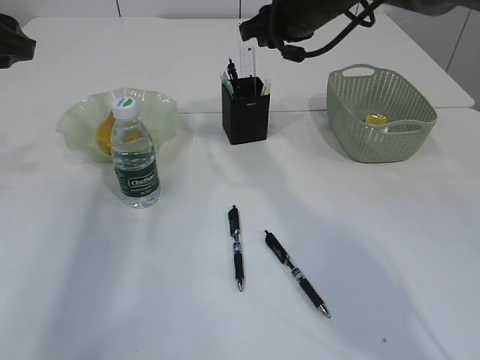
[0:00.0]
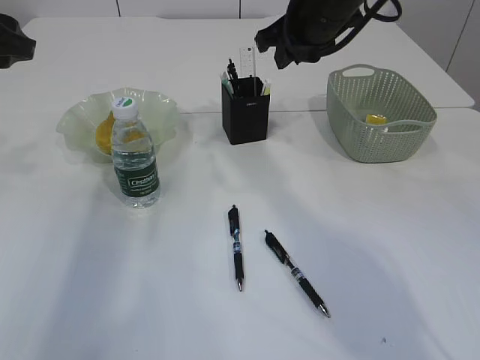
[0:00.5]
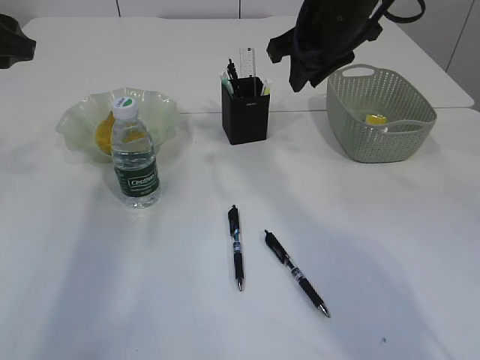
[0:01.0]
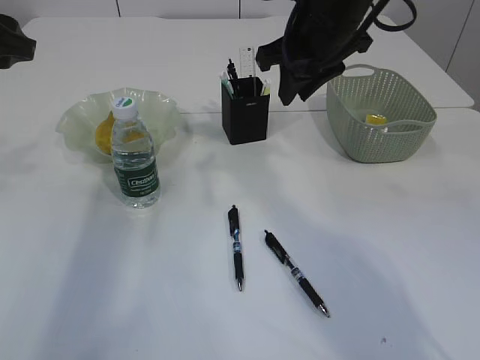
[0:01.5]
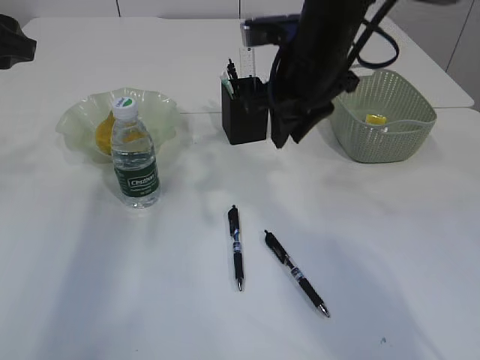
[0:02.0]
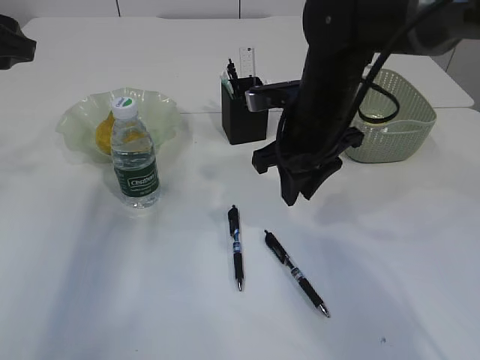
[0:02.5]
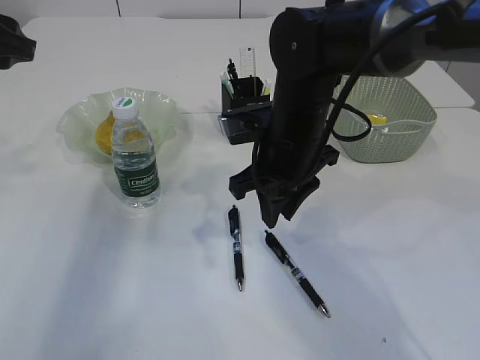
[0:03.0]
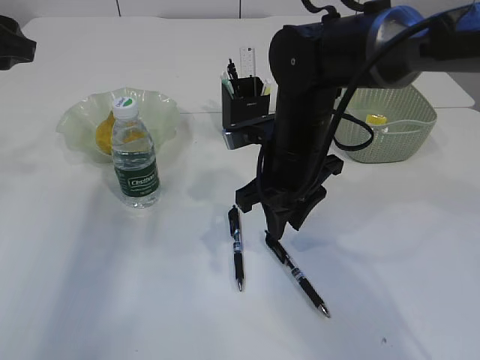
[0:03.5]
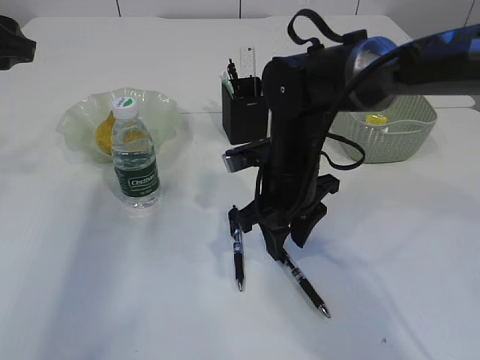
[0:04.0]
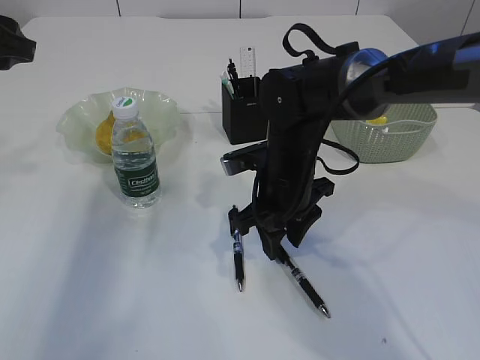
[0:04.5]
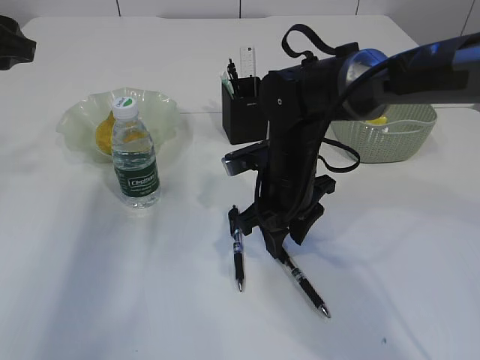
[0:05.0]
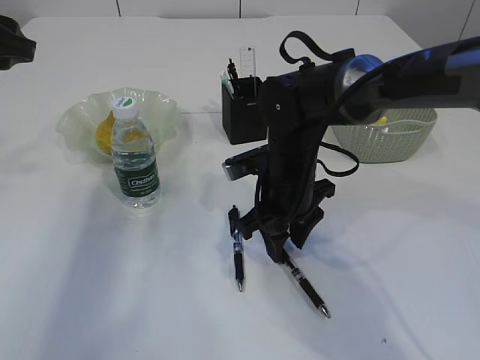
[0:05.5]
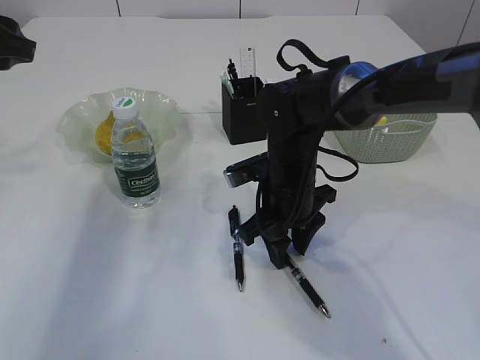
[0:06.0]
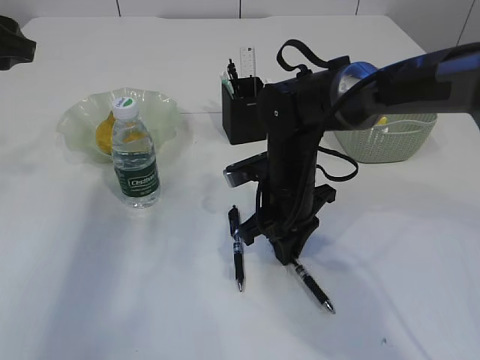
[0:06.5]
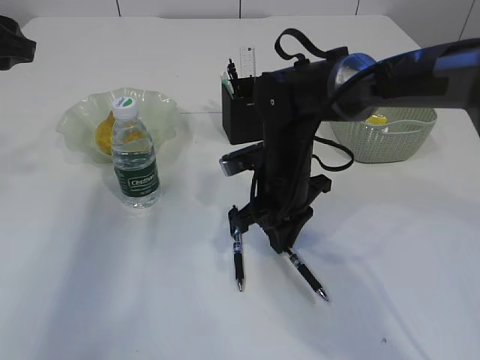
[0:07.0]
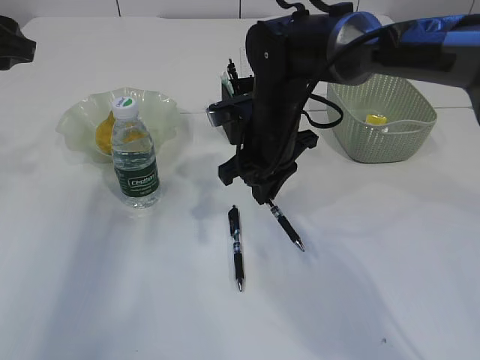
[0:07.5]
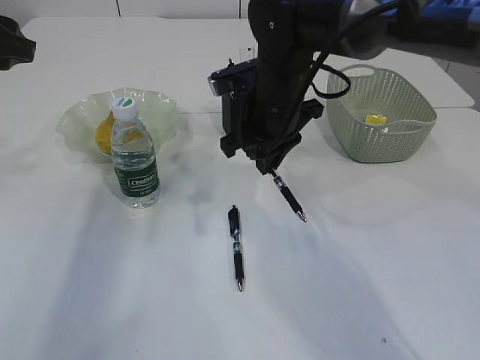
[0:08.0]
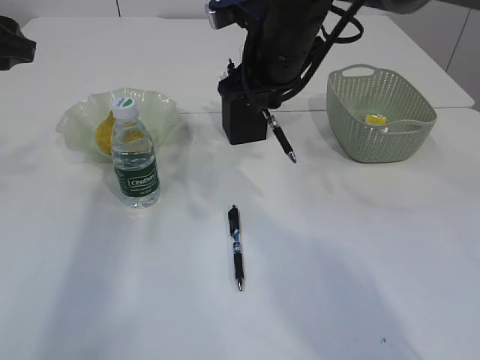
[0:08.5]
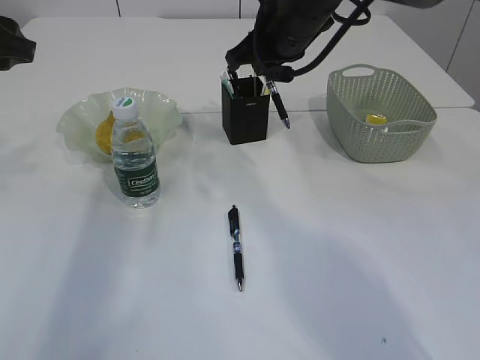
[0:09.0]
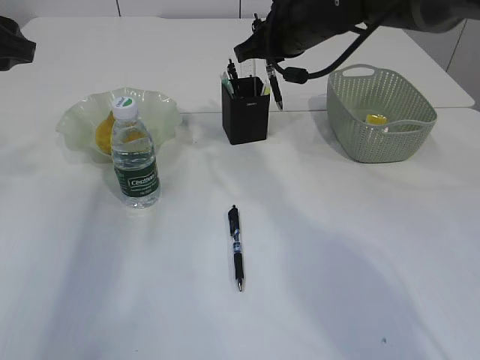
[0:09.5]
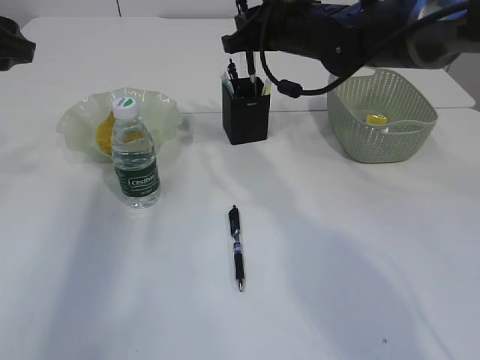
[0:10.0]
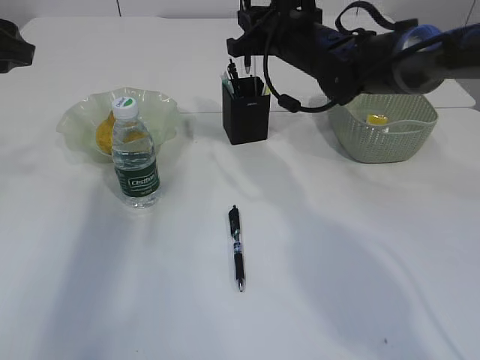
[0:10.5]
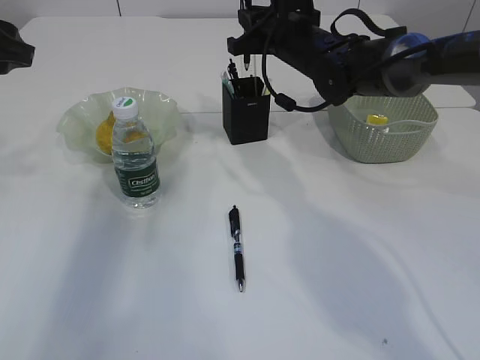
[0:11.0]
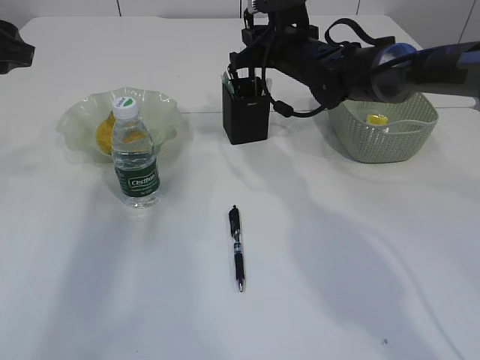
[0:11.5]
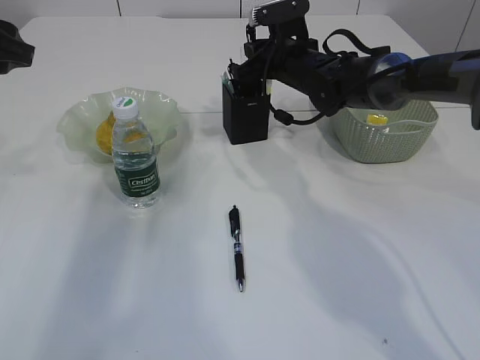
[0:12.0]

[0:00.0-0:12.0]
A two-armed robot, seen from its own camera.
Step, 0:02.0 to 0:08.0: Pick up the pen with right arm.
0:00.0 to 0:02.0: The right gripper heads backward, covering approximately 10 cm.
0:02.0 to 0:04.0: The right gripper travels downward by some 10 cm.
0:04.0 to 0:06.0: The grippers stay close to where they were, moving slightly.
0:06.0 to 0:08.0: The right gripper heads upward, covering roughly 10 cm, and closes its fingers.
0:08.0 to 0:10.0: The right gripper moves forward, about 5 cm.
0:10.0 to 0:12.0: The right gripper moves downward and forward, approximately 10 cm.

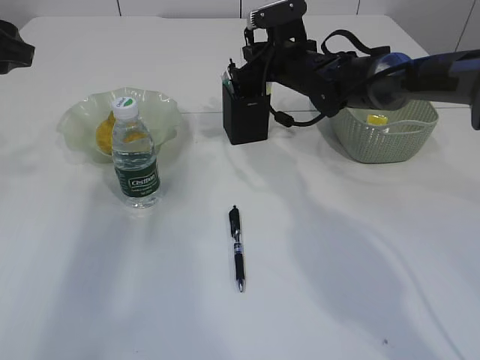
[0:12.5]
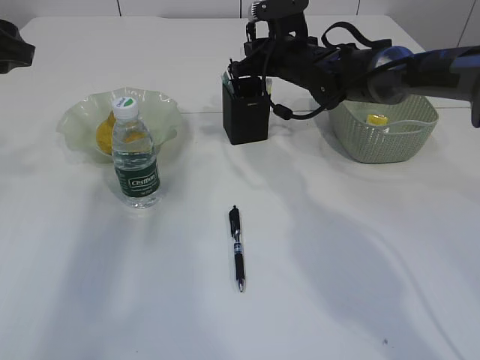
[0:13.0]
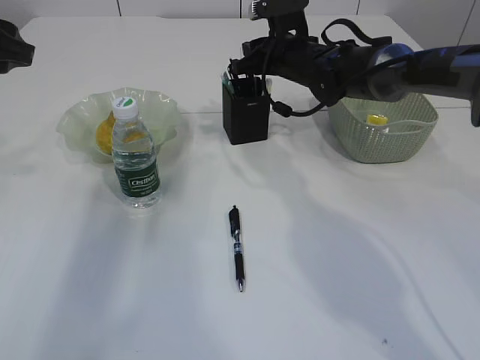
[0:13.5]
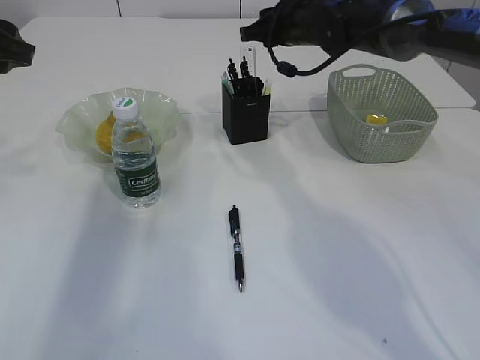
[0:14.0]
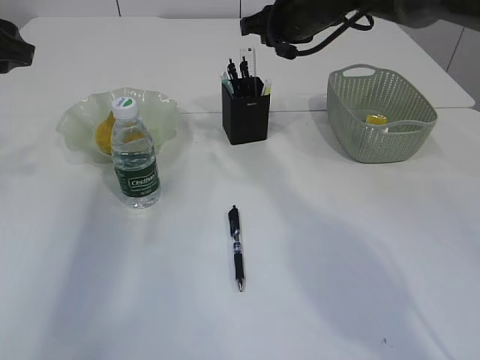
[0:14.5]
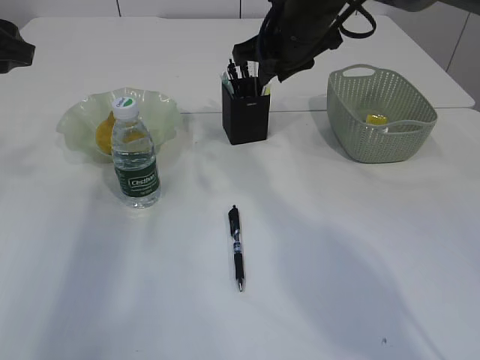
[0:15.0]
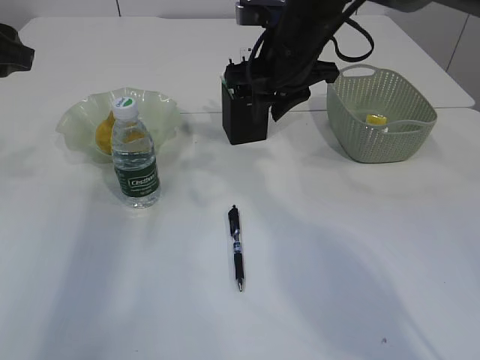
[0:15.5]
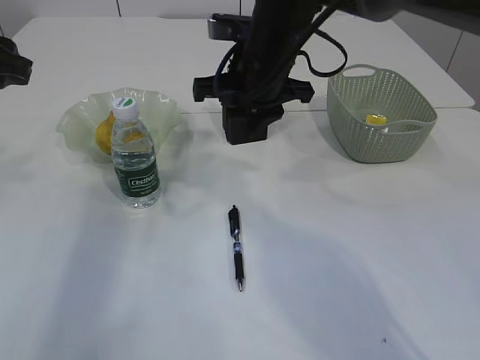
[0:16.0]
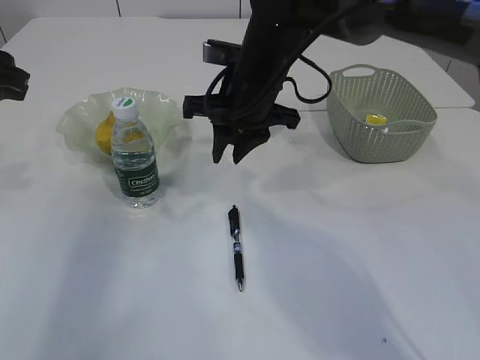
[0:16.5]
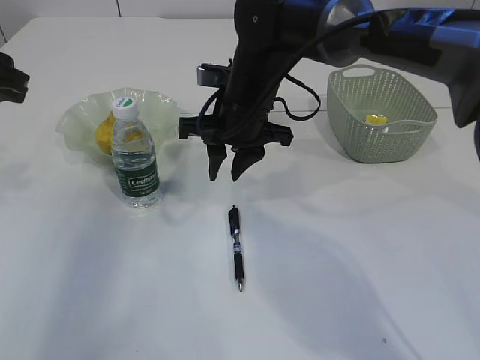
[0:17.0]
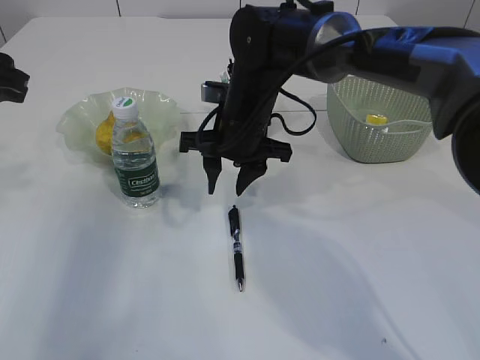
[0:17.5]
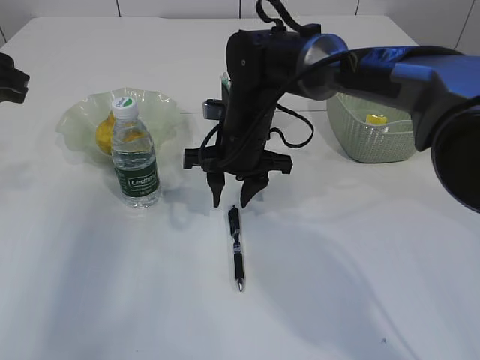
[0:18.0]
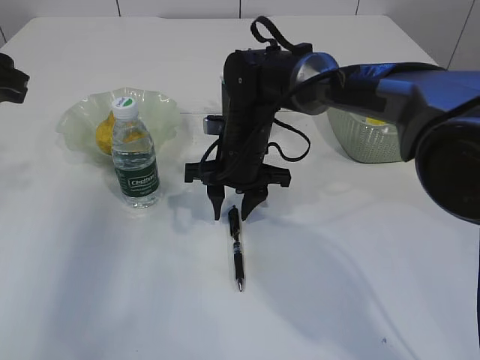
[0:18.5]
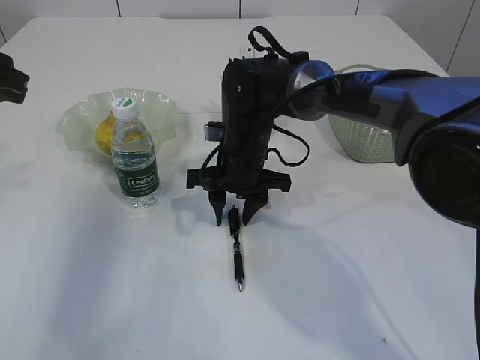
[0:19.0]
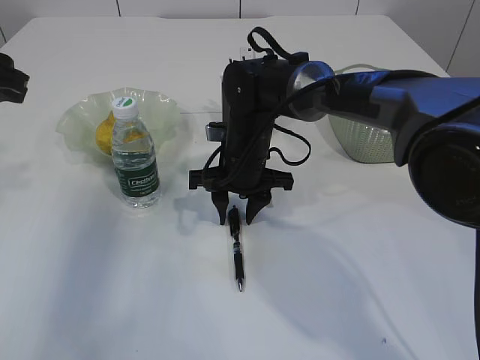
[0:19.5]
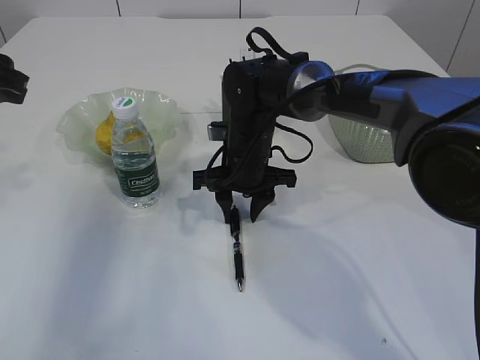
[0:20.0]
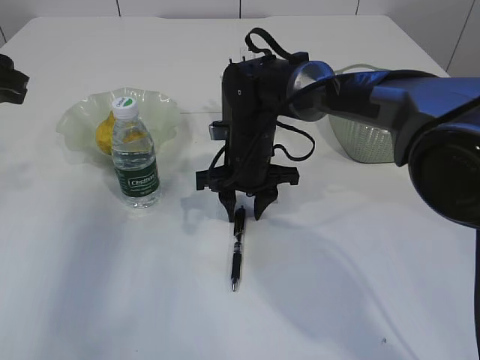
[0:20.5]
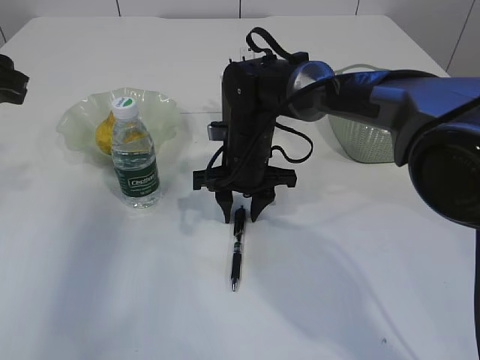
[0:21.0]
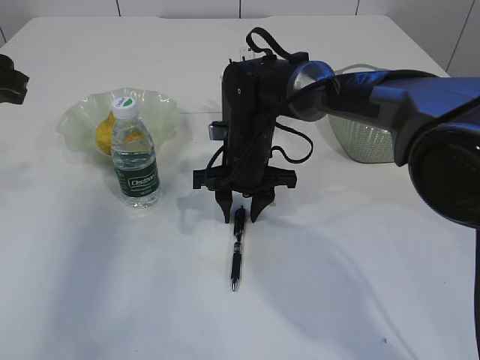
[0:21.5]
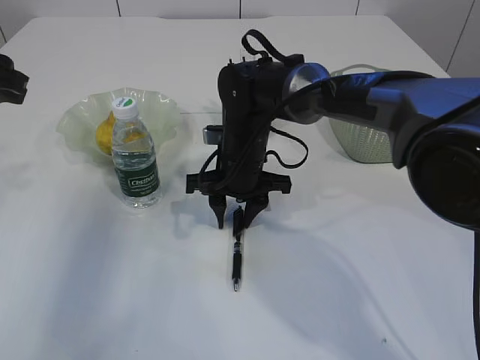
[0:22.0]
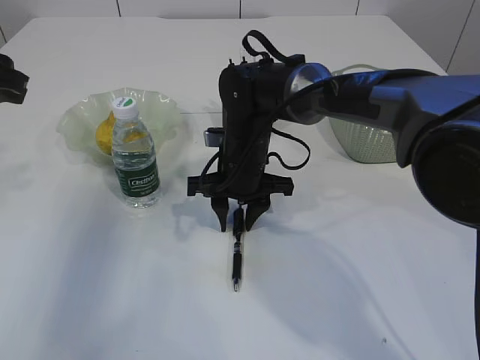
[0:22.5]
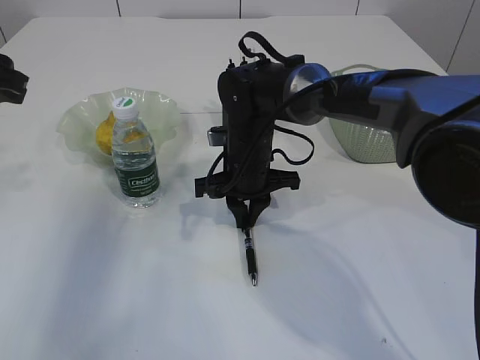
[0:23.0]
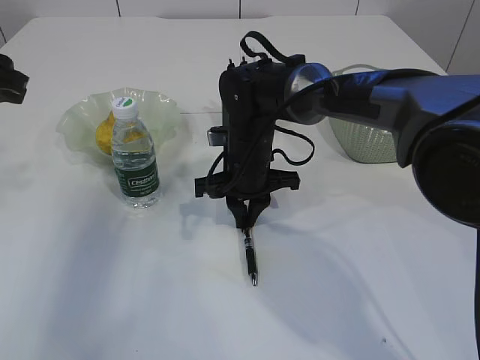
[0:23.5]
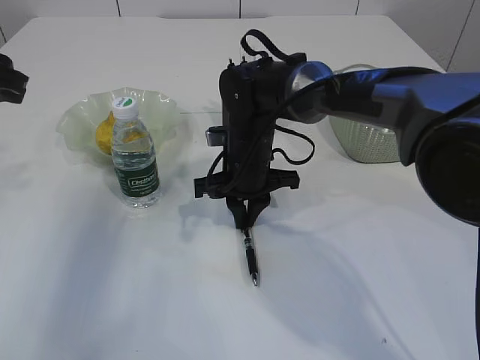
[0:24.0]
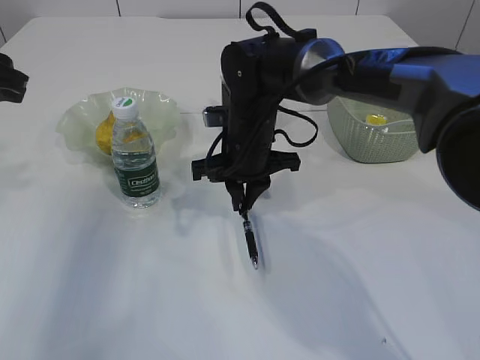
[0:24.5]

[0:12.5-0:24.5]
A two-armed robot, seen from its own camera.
0:12.5 to 0:14.5: The right gripper is displaced upward by approximately 10 cm.
0:14.5 to 0:16.5: The right gripper shifts some 10 cm backward and to the left.
0:16.5 to 0:18.5: The right gripper travels downward by some 10 cm.
0:18.5 to 0:22.5: There are only small adjustments of the grippers.
0:22.5 to 0:24.5: The right gripper closes up.

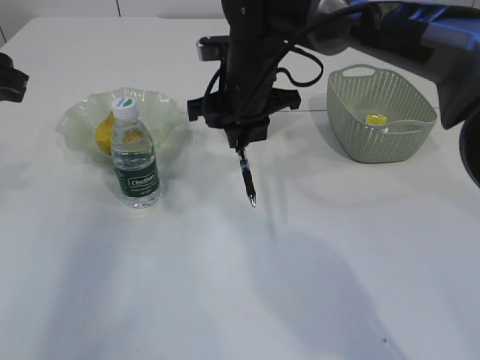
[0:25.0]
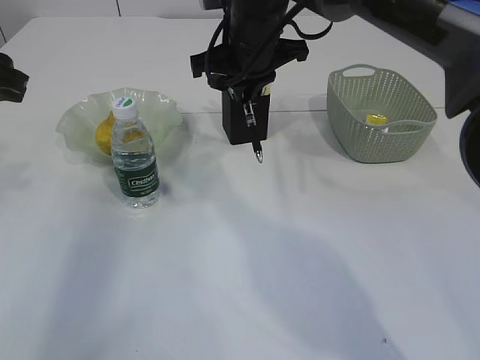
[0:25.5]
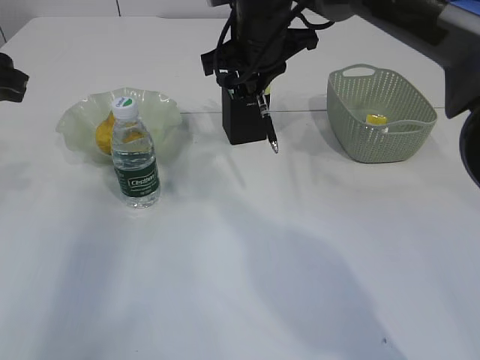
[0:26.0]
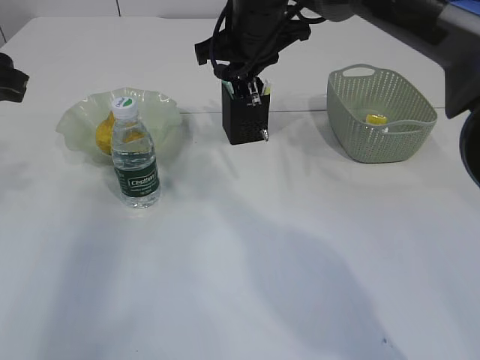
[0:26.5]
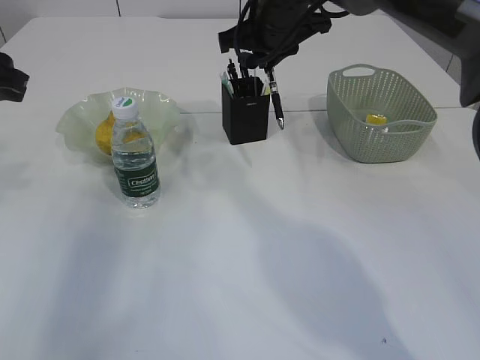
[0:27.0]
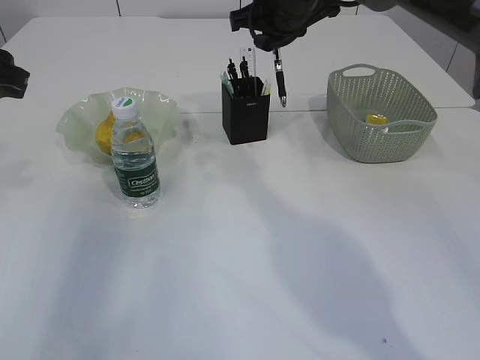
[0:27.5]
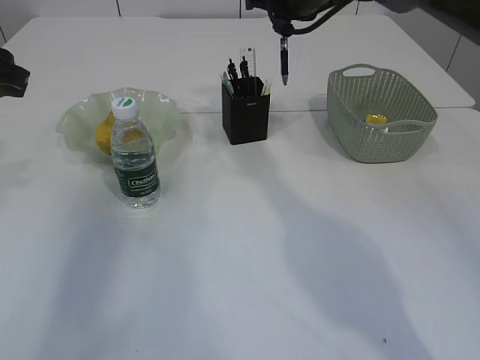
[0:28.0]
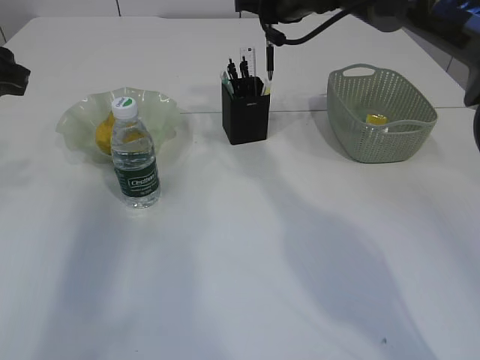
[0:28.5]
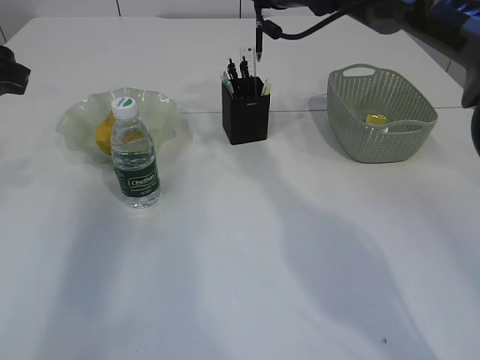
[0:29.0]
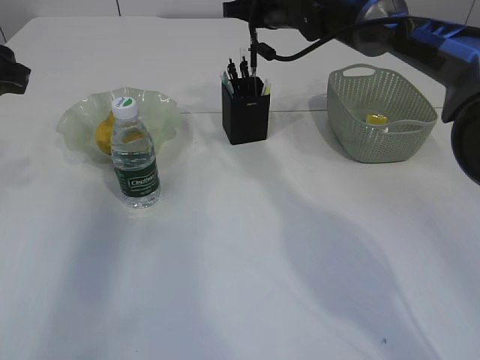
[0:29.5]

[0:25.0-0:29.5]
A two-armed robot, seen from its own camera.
0:25.0 to 0:27.0: The right gripper is displaced upward by some 5 cm.
0:27.0 to 0:29.5: The right gripper shifts some 10 cm forward.
